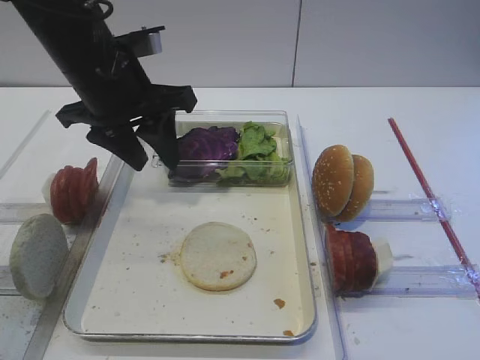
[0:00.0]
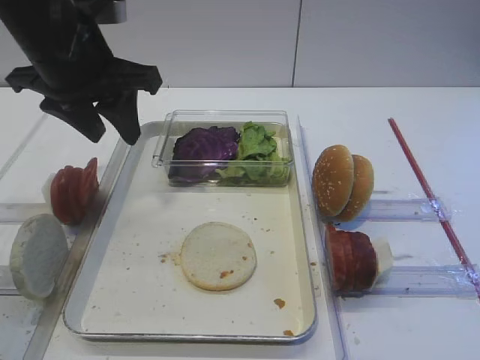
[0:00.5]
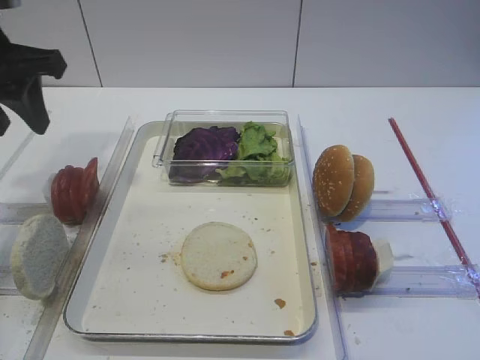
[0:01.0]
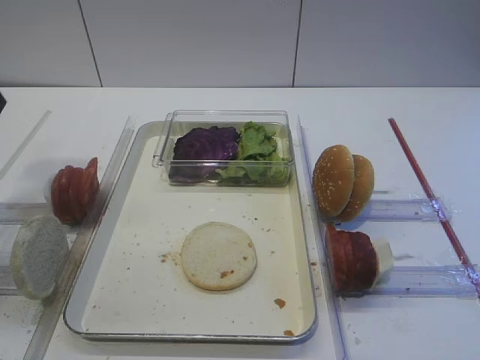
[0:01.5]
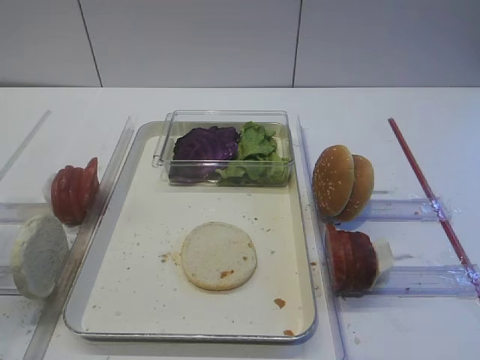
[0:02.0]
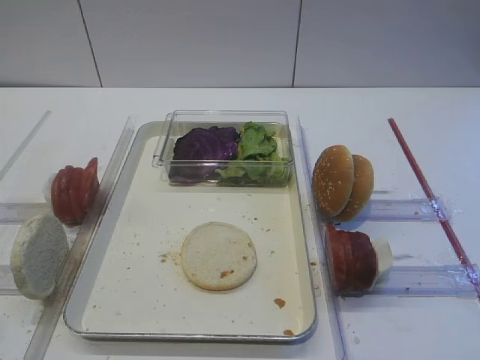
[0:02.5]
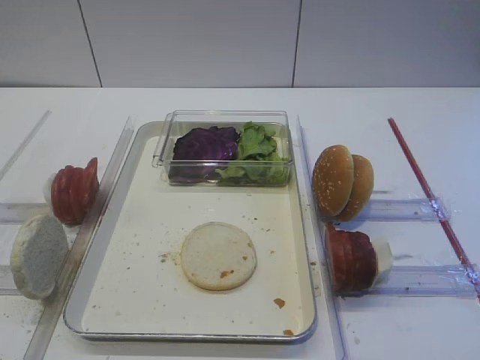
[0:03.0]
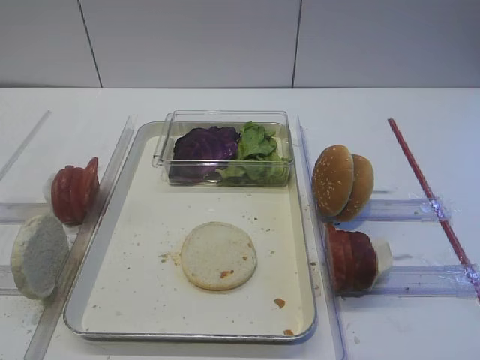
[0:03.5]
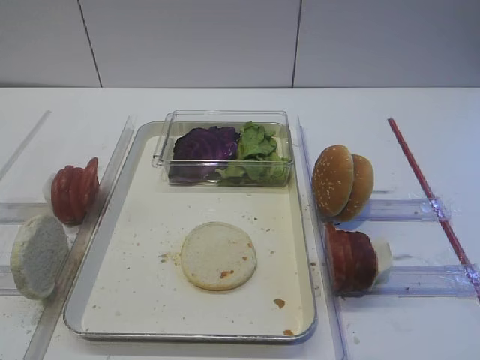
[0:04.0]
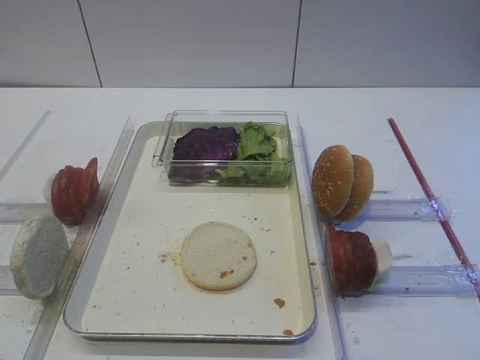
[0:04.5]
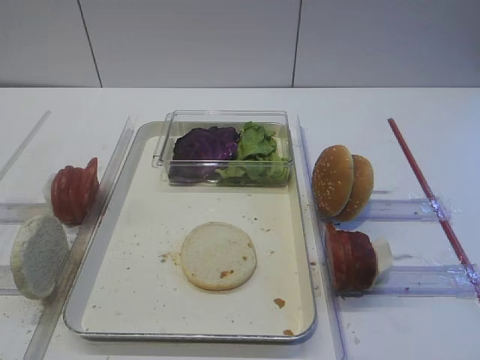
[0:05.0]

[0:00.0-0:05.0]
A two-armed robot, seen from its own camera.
0:00.0 to 0:02.5: The left gripper heads backward and to the left, covering some 35 cm.

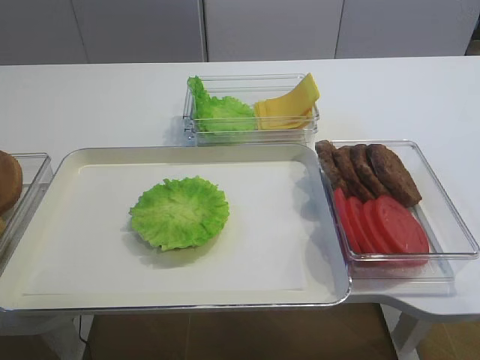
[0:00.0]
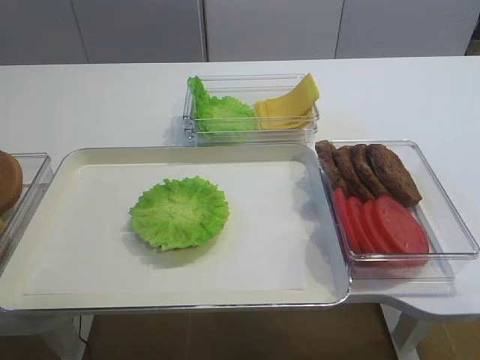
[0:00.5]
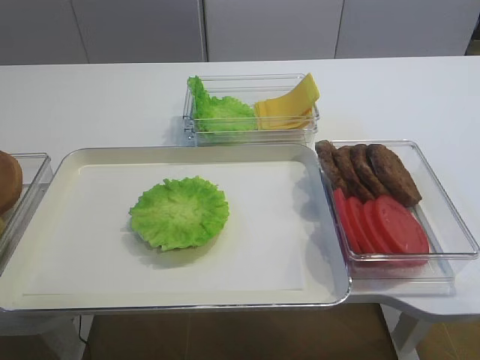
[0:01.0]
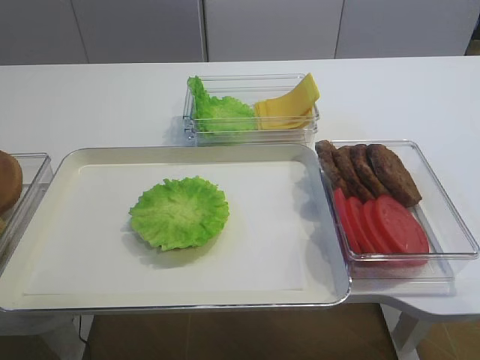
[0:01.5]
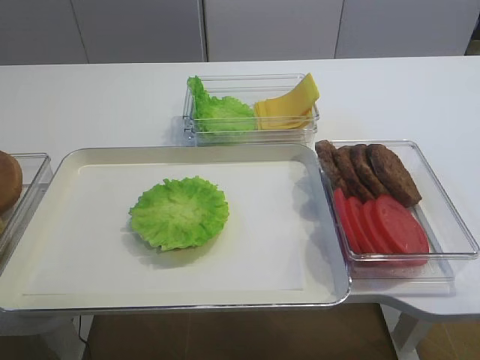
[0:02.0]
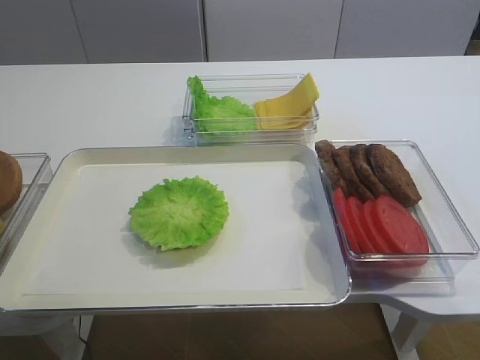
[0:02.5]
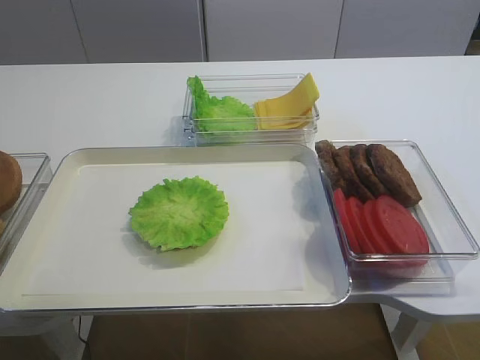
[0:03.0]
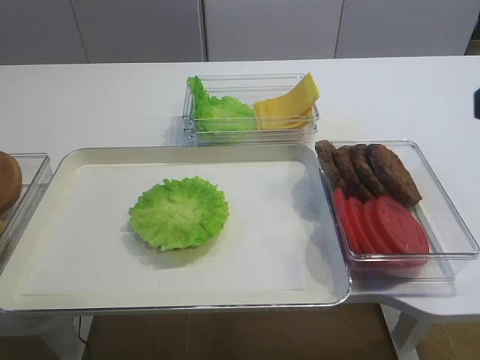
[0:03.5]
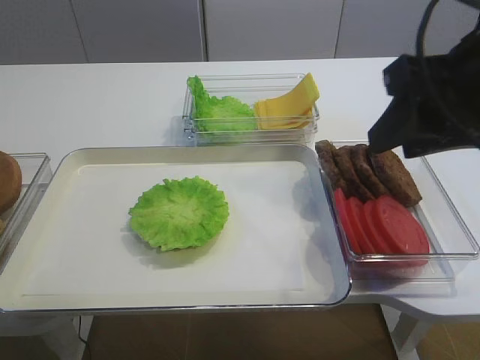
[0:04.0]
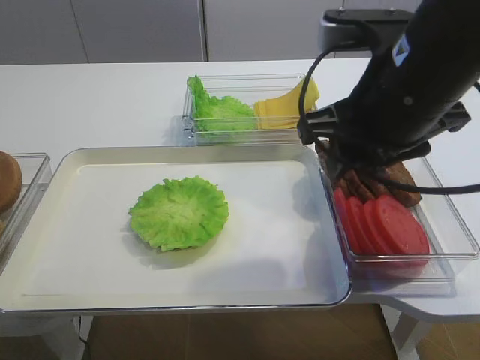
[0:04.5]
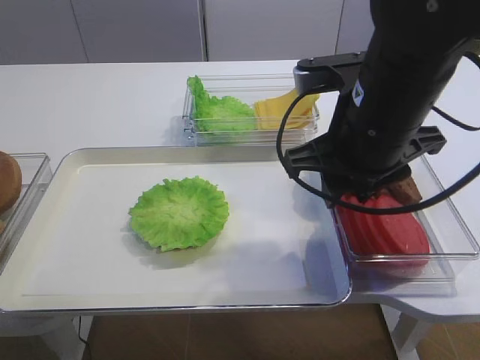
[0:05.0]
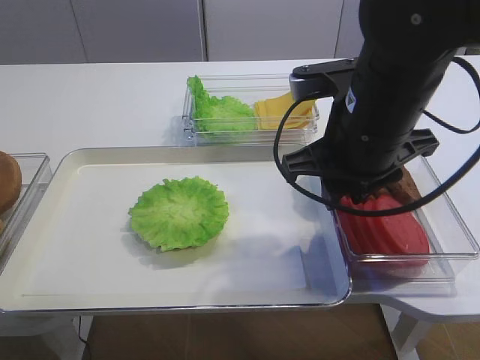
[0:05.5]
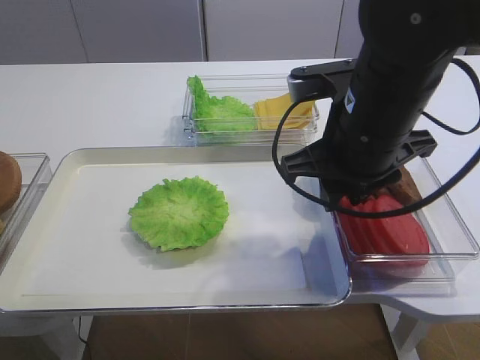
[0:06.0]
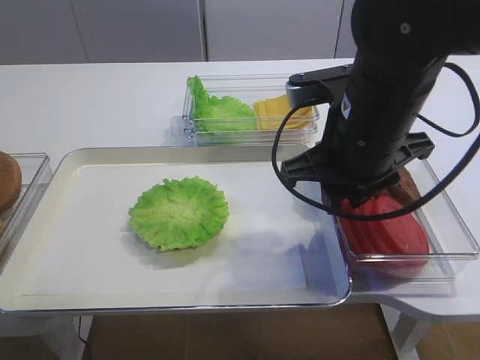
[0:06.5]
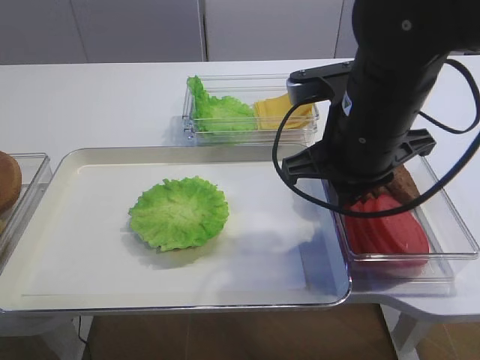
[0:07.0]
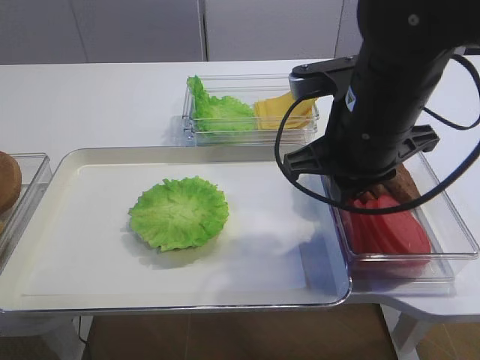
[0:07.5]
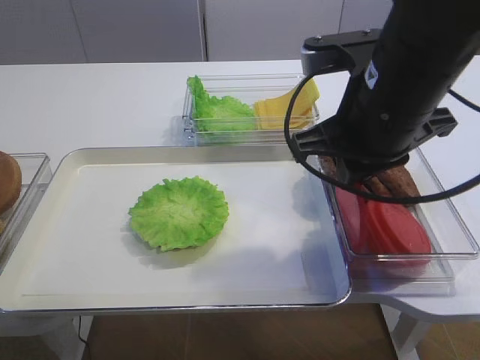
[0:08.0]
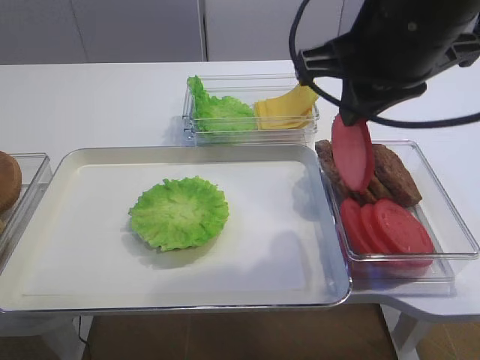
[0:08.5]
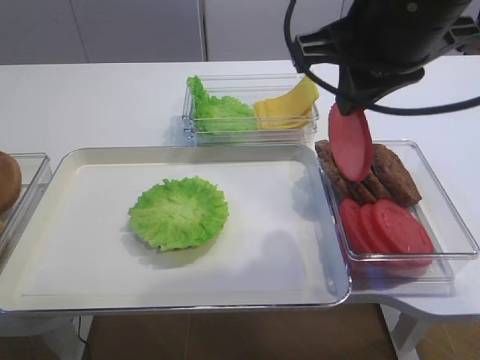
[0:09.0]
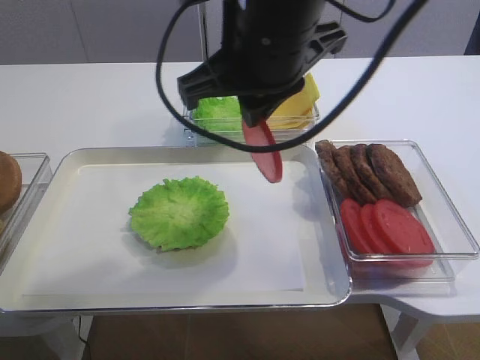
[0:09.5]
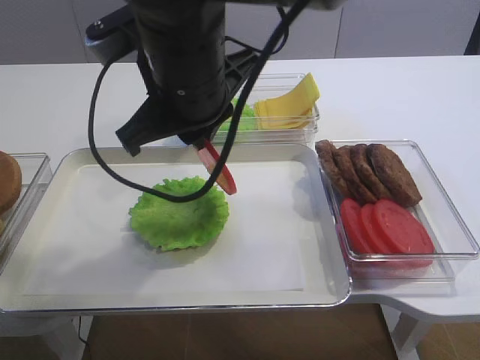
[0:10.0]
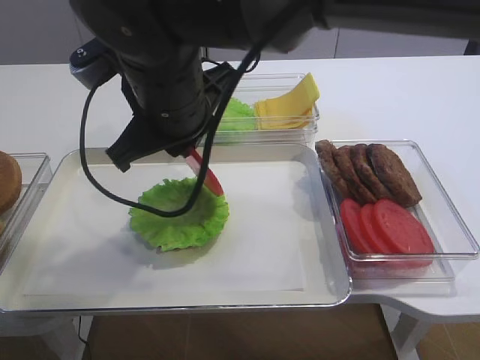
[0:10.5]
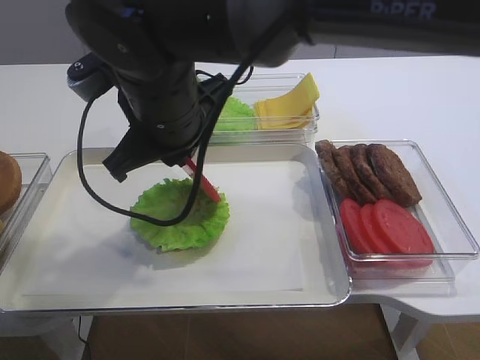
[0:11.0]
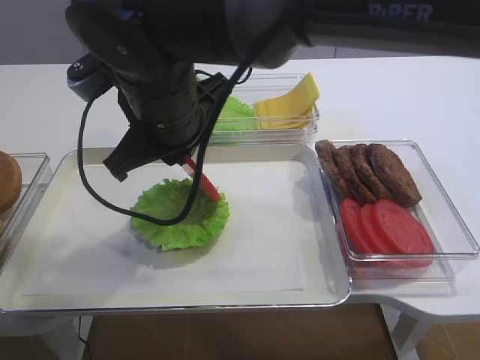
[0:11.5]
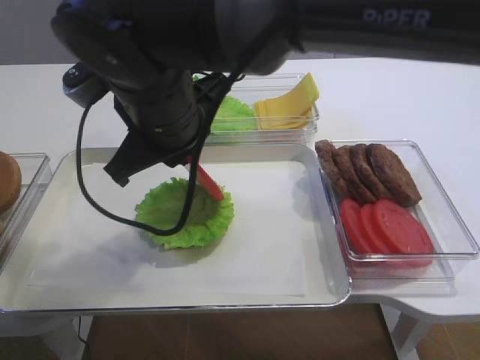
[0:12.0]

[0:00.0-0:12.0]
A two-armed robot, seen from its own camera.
Step, 0:00.0 to 0:08.5: Pick up the tomato slice with the right gripper.
0:02.0 to 0:04.0: The right gripper shifts some 25 cm forward and to the left.
0:04.0 to 0:06.0: The right gripper shifts approximately 10 cm to the left and downward.
0:06.0 to 0:08.0: There are only small adjustments of the grippers.
0:08.0 to 0:10.0: The right gripper moves to the left, roughly 15 cm.
0:10.0 to 0:12.0: The grippers move only a little.

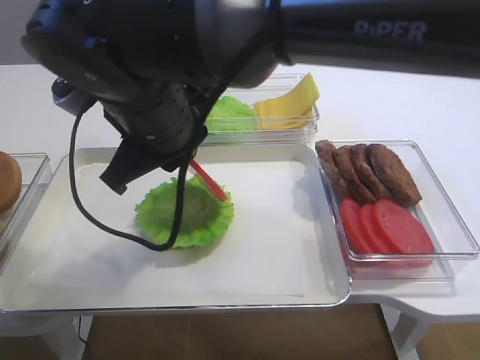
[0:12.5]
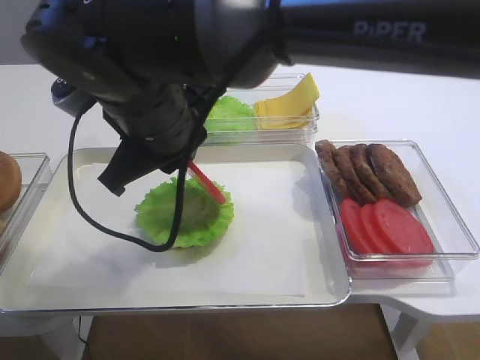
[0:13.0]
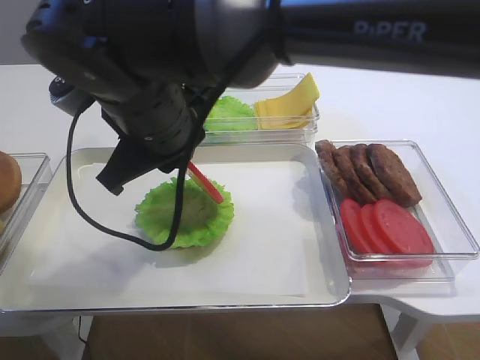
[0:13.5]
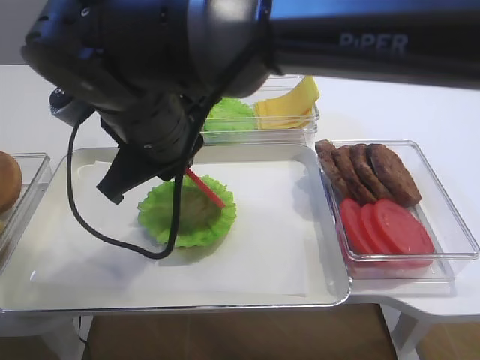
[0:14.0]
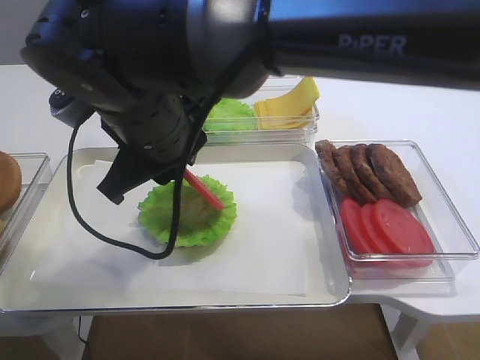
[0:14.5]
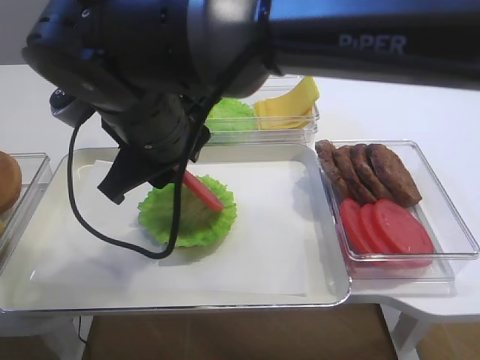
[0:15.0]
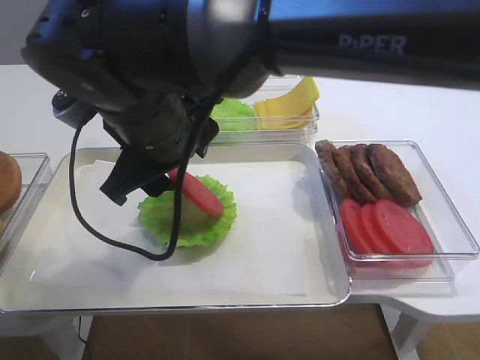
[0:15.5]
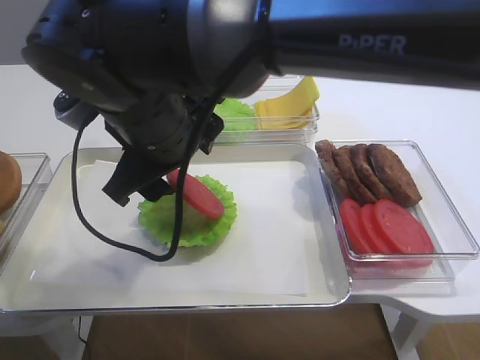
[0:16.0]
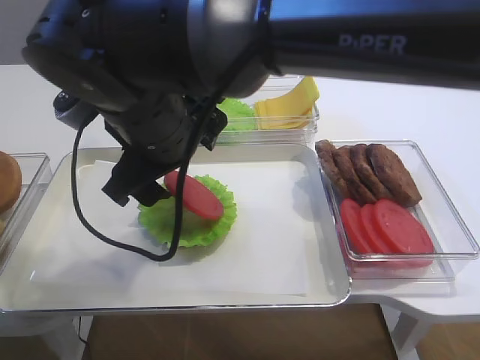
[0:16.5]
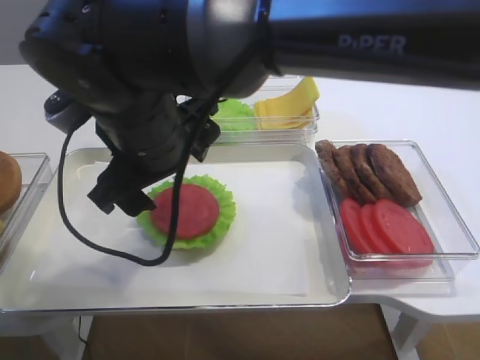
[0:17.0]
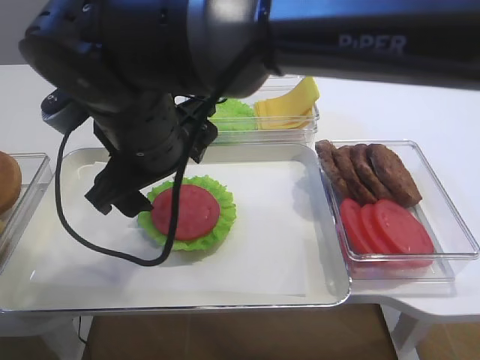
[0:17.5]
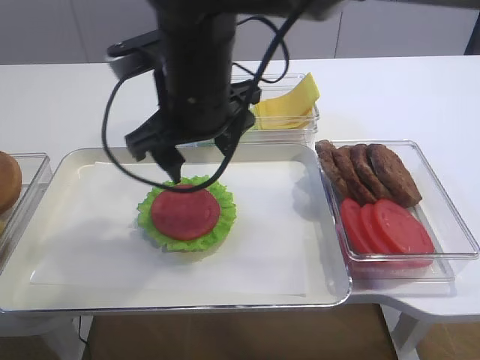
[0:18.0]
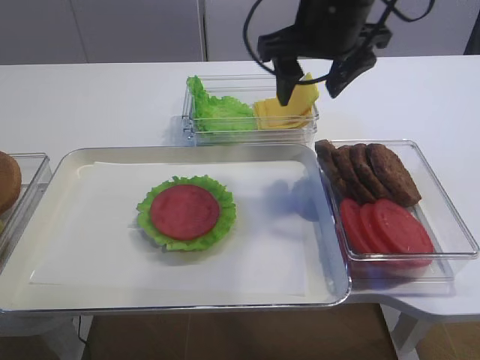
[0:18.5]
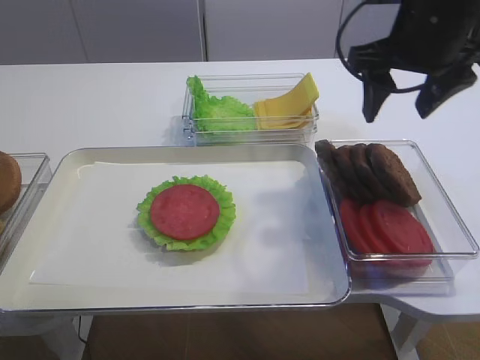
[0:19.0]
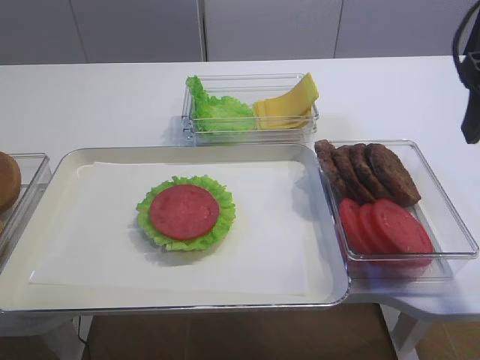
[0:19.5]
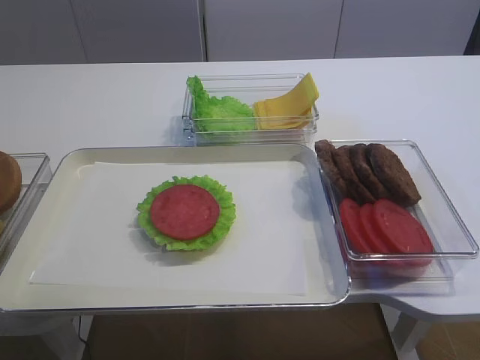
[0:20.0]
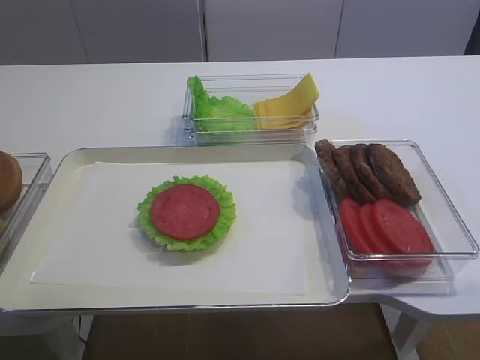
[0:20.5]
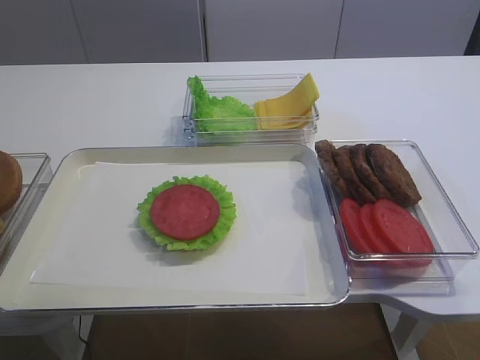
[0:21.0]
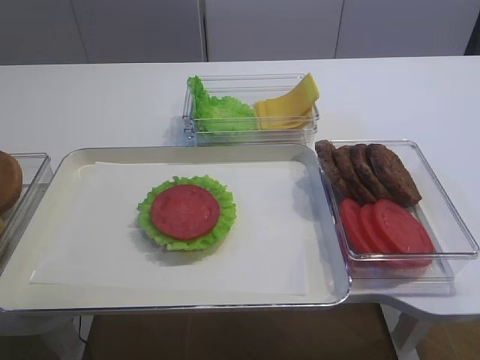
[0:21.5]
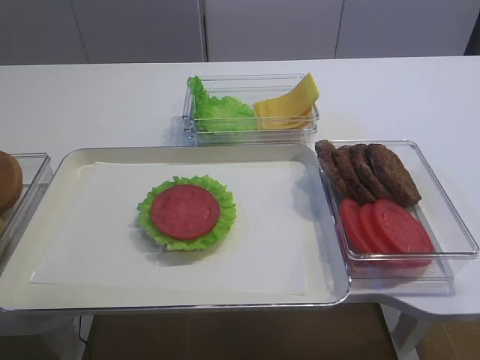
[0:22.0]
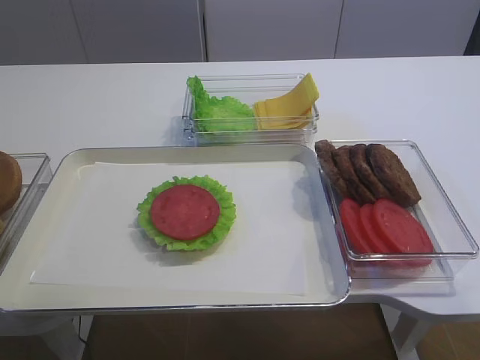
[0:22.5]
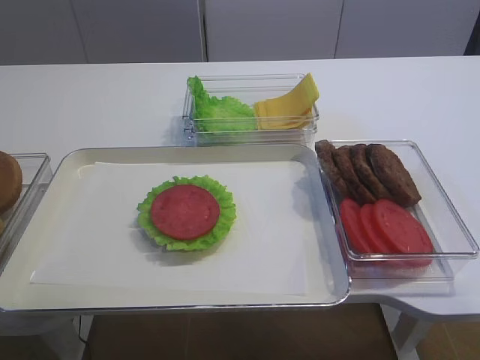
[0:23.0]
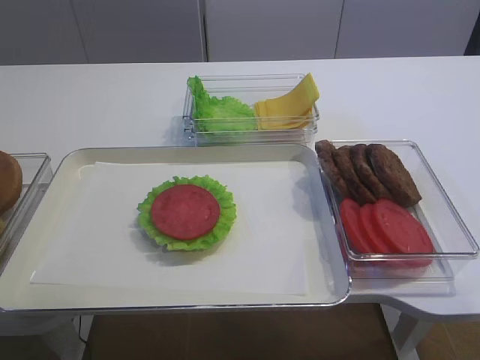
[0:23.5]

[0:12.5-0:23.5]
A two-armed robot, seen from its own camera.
Step, 0:12.5 to 0:17.0: Place the tomato slice on the lettuce leaf with the right gripper.
0:12.5 to 0:14.5: Both grippers stay about where they are.
0:14.5 to 0:16.0: The right gripper opens up.
0:16.0 to 0:18.0: The right gripper shifts by about 5 cm.
0:18.0 to 0:20.0: The right gripper is displaced to the right and backward by about 35 cm.
